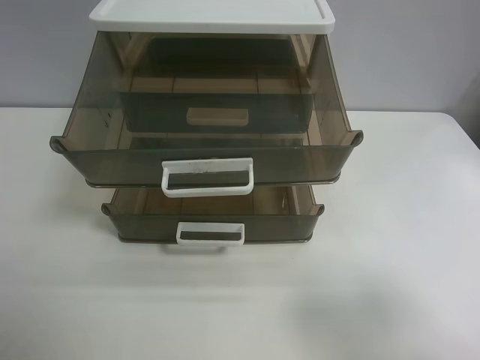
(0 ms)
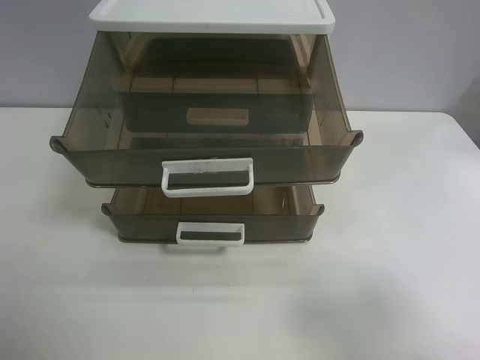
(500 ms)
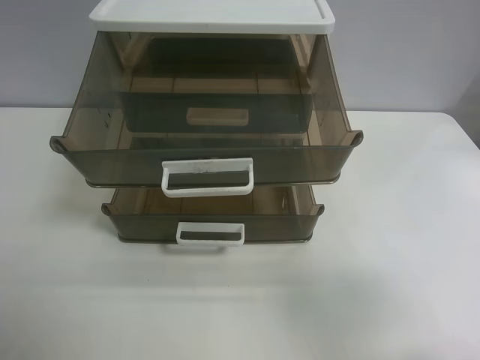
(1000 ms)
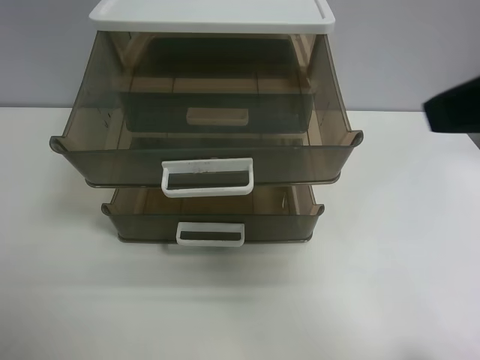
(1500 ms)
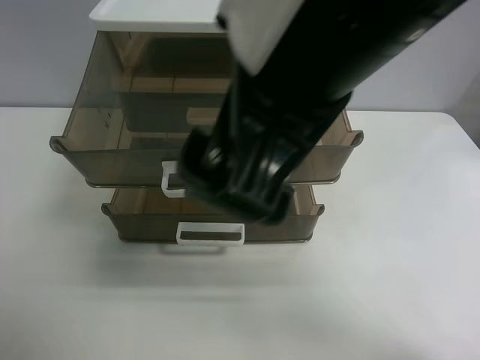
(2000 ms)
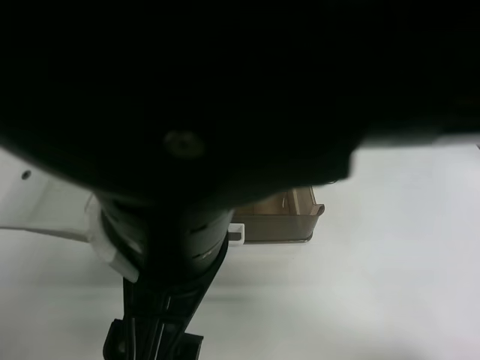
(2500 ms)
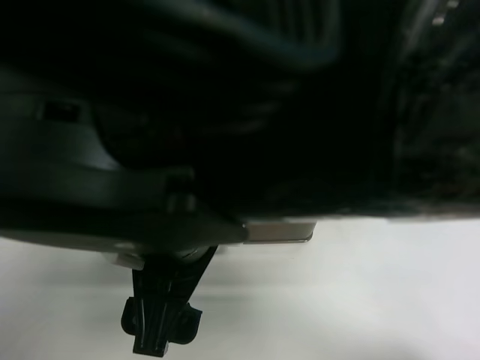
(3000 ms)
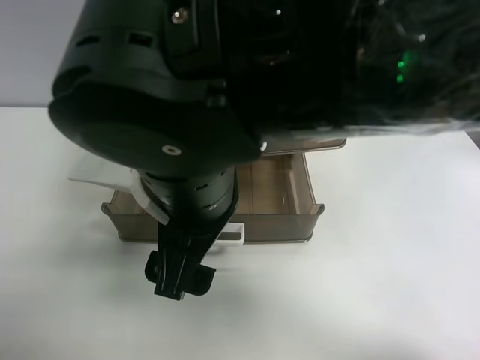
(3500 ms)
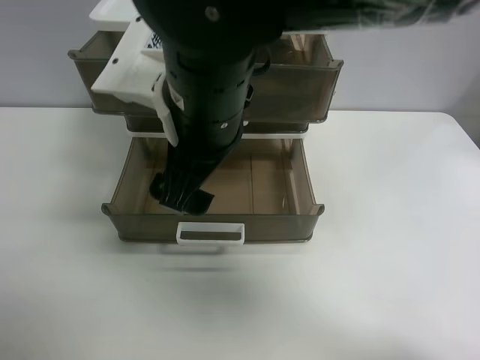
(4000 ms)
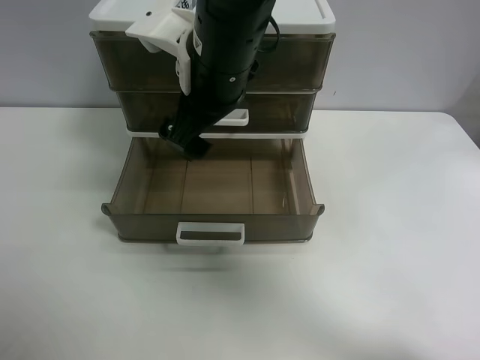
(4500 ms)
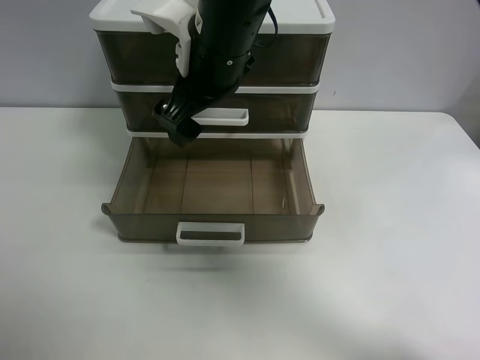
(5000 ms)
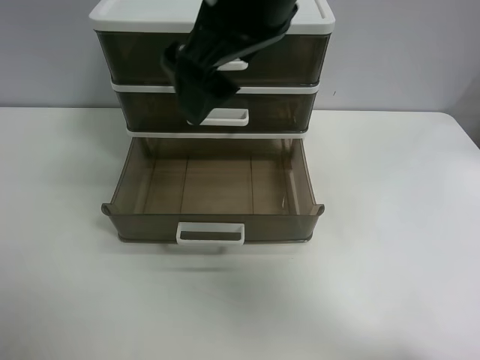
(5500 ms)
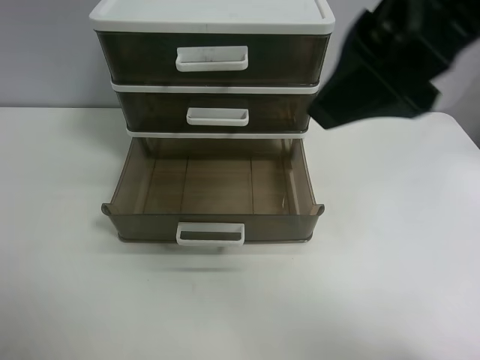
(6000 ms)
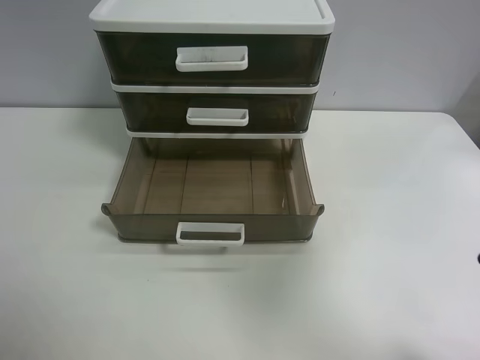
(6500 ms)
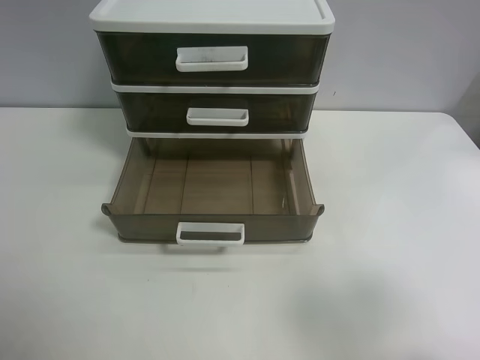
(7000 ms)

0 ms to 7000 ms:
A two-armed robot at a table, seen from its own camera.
Task of the whole recording: close the top drawer.
Step, 0 ms to 2500 ms: Use the right gripper to touch the topmost layer of the storage cabinet.
Step, 3000 ms to 5000 ms: Push the top drawer closed.
0 ms to 2000 ms: The right gripper heads to the left and forward, covering some 30 cm.
2000 ms to 3500 ms: The right gripper is displaced downward and to the left by approximately 15 cm.
3500 ms to 5000 ms: The right gripper shifts some 15 cm forward.
5000 ms to 7000 ms: The right gripper heads to the right and backward, covering approximately 40 cm.
